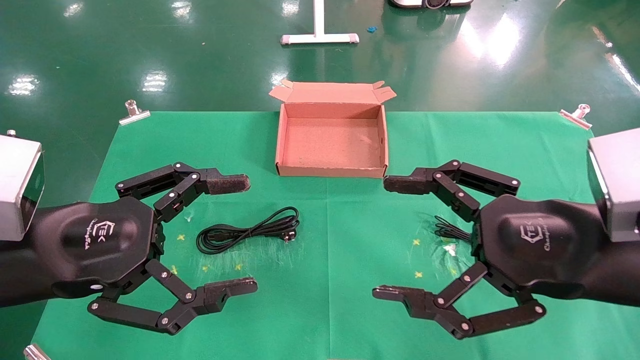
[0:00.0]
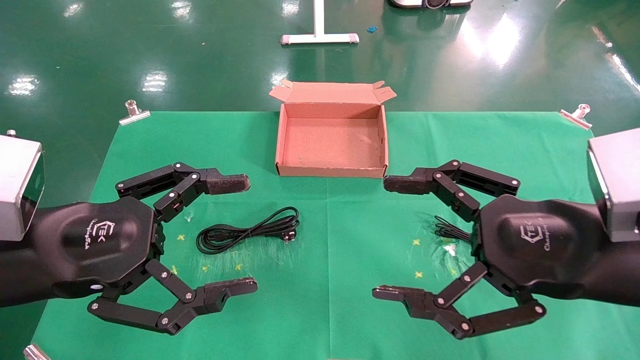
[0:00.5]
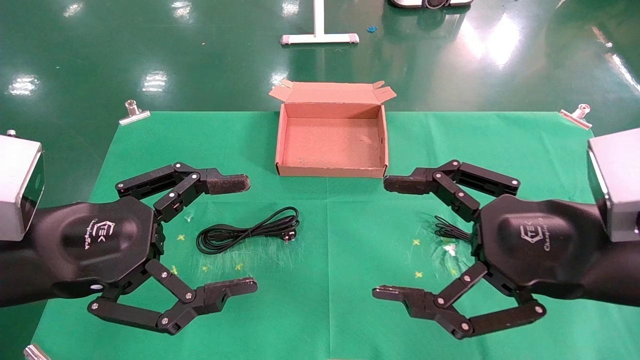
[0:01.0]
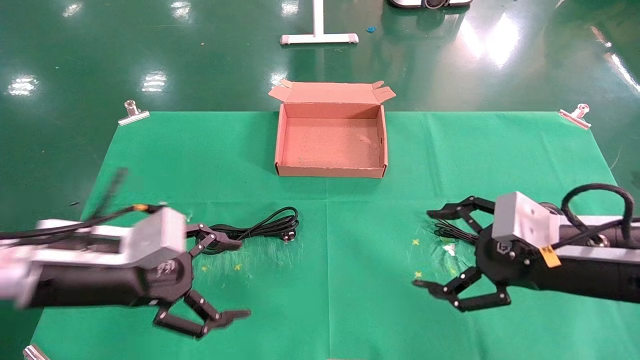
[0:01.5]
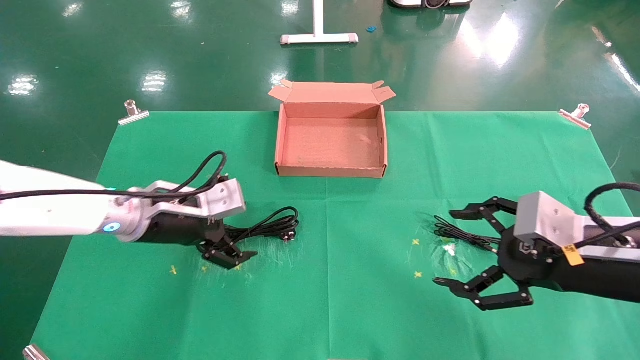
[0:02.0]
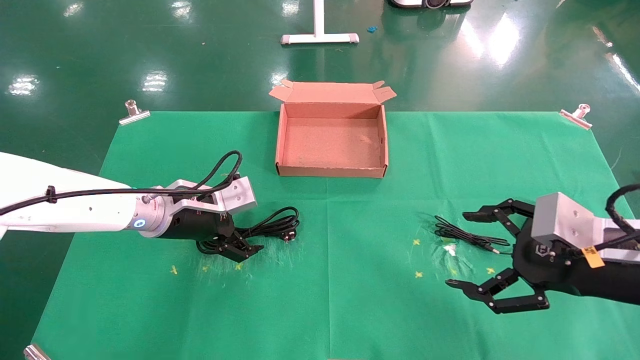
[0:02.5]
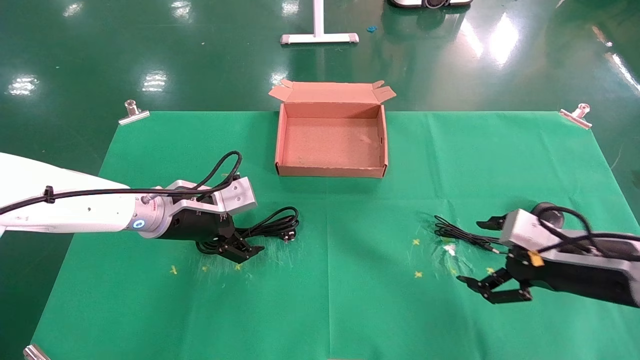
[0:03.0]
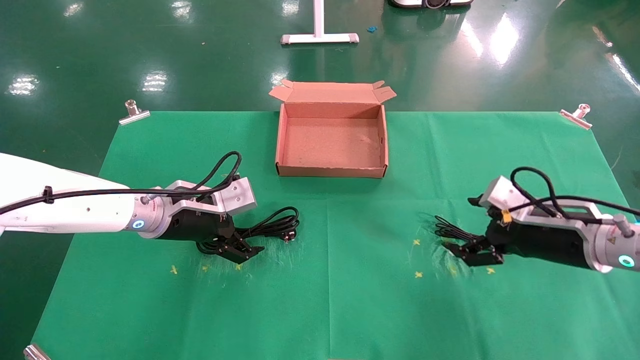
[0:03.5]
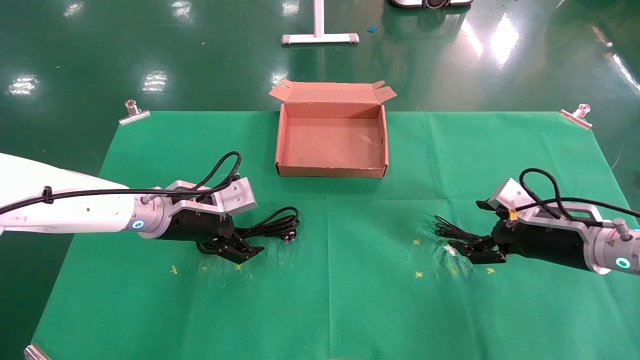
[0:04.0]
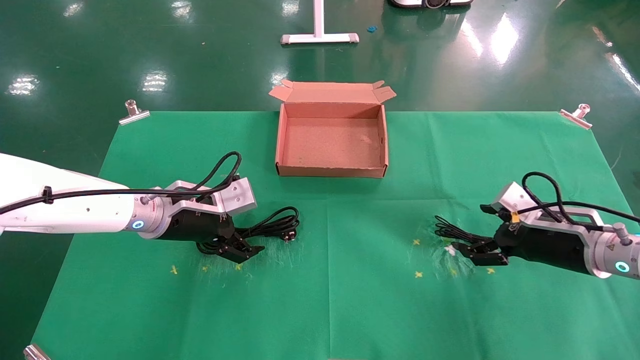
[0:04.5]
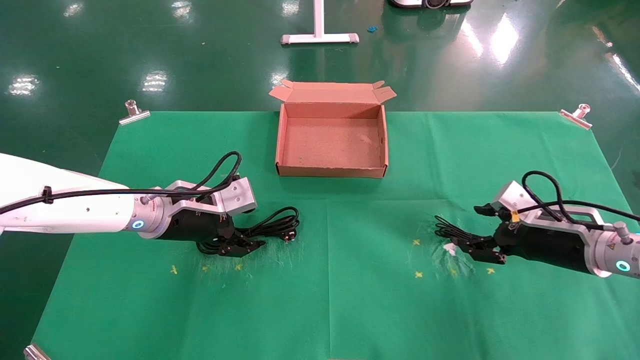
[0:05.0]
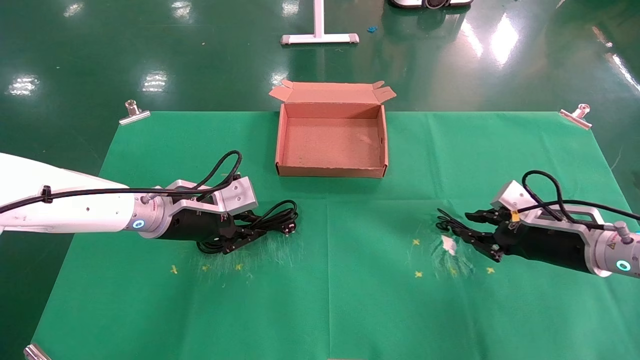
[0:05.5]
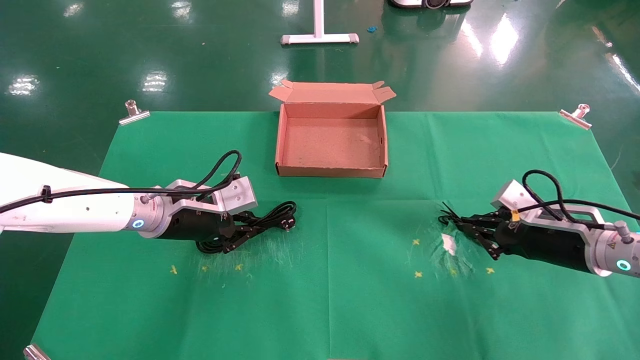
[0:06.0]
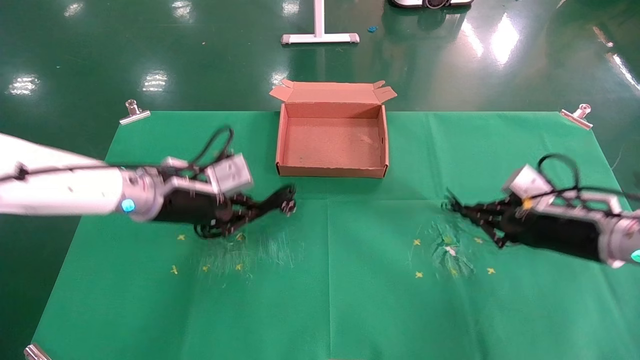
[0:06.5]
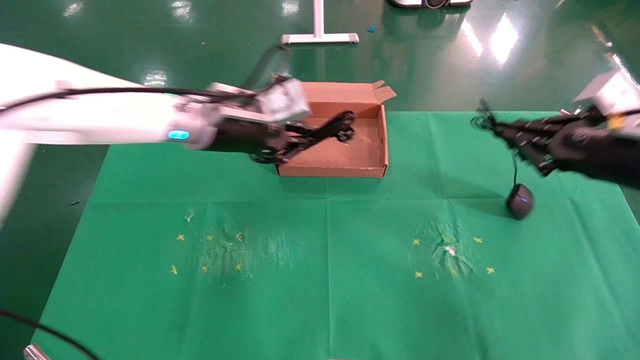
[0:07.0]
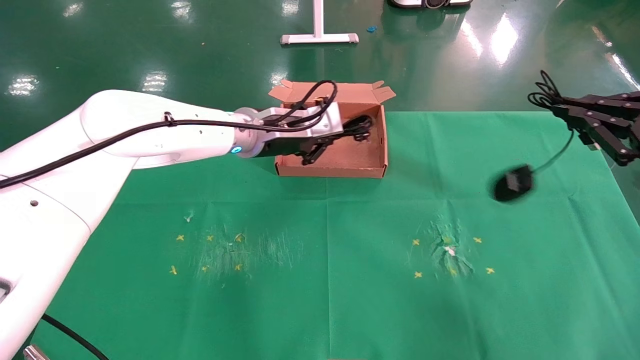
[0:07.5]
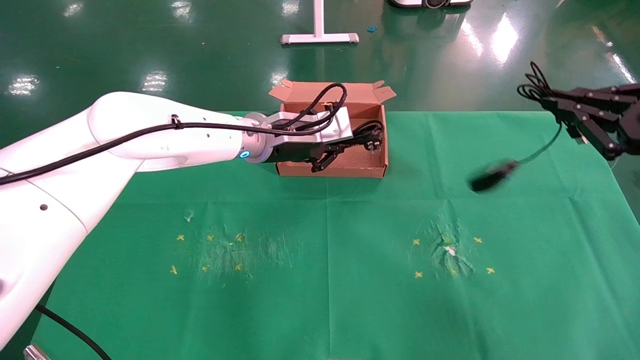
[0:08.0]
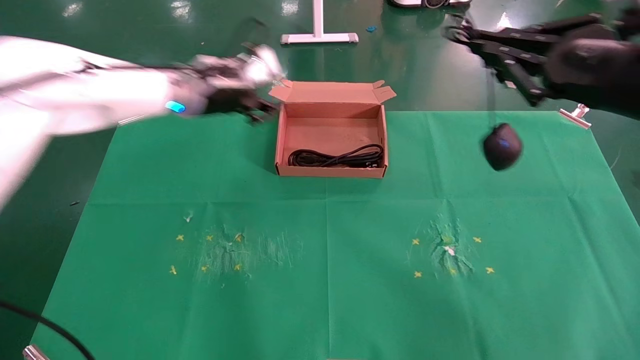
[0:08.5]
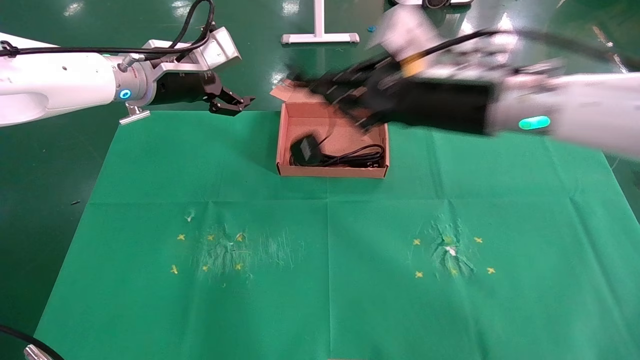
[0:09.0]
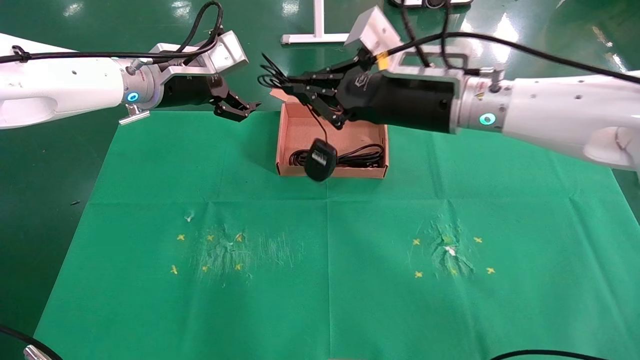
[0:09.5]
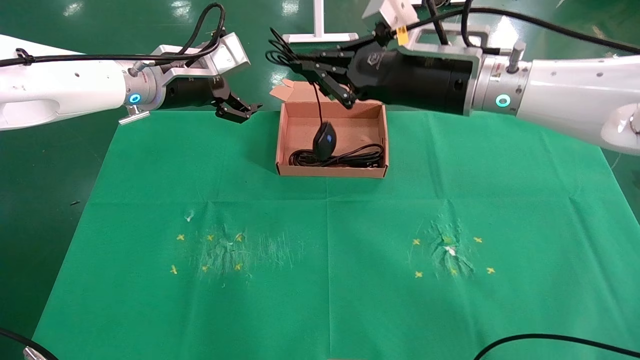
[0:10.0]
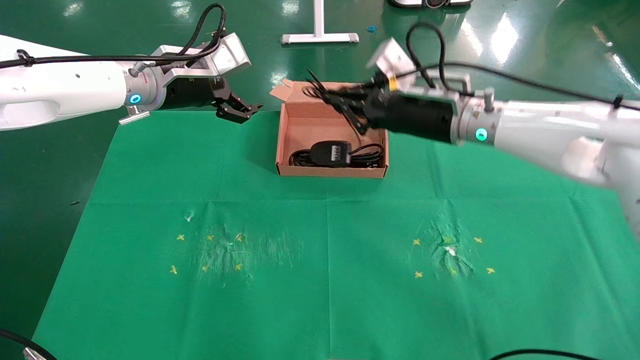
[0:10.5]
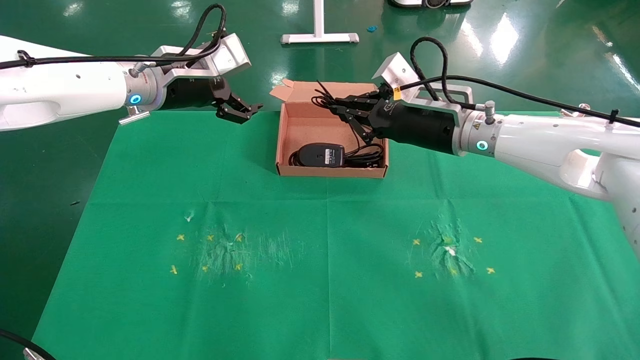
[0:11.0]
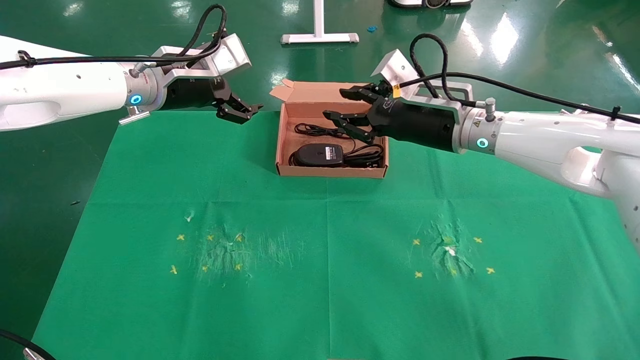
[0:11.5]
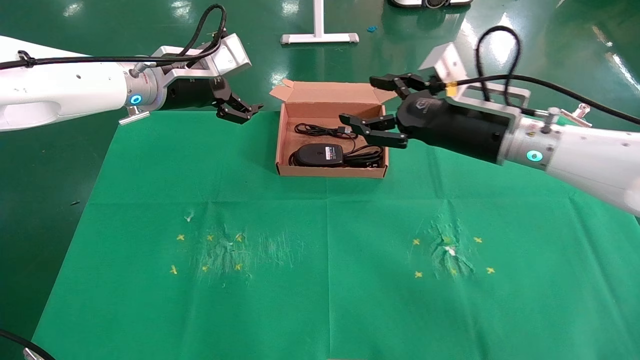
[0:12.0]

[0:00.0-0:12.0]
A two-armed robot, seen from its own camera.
Task of the whole recording: grasp data cable left put into box grasp mouse right put into box.
Step, 0:01.5 to 0:06.0: Simultaneously pick up the mouse and power cord from the accessory packaging area.
Step, 0:06.5 to 0:11.0: Place the mouse and power cord into the box.
0:00.0 to 0:02.0: The left gripper heads forward, covering some 20 cm. The right gripper goes roughly 10 cm to the right, downward and forward.
0:02.0 to 0:04.0: The right gripper heads forward and downward, covering about 15 cm.
0:04.0 to 0:06.0: The left gripper closes its fingers. The right gripper closes up.
0:06.0 to 0:08.0: The right gripper heads upward and backward, covering about 20 cm, while the left gripper heads to the right, upward and forward, covering approximately 20 cm.
0:08.0 to 0:10.0: The left gripper travels to the left and upward by roughly 15 cm, and opens its fingers. Meanwhile the right gripper moves to the left and forward, about 30 cm.
0:10.0 to 0:12.0: The right gripper heads to the right and downward, covering some 10 cm, and opens up.

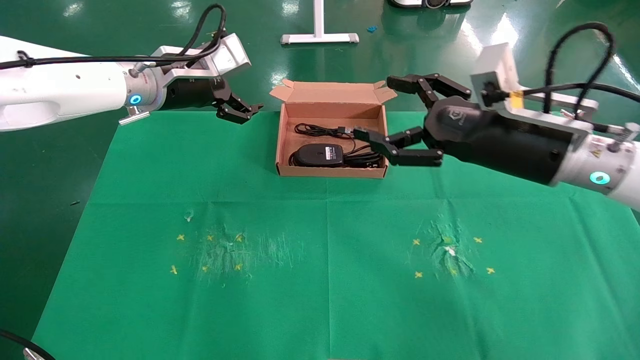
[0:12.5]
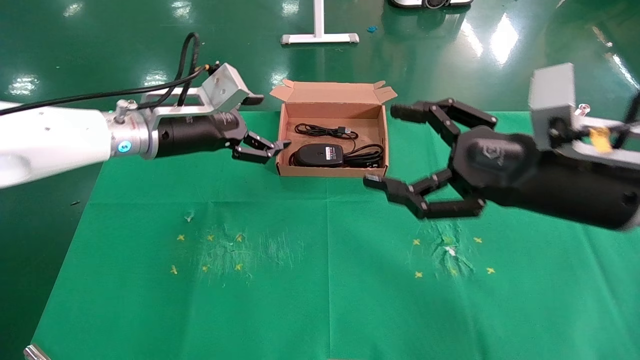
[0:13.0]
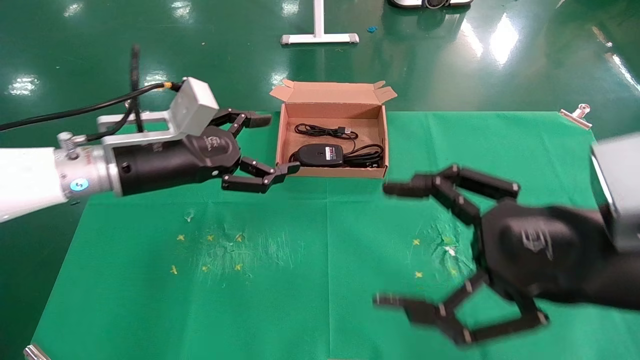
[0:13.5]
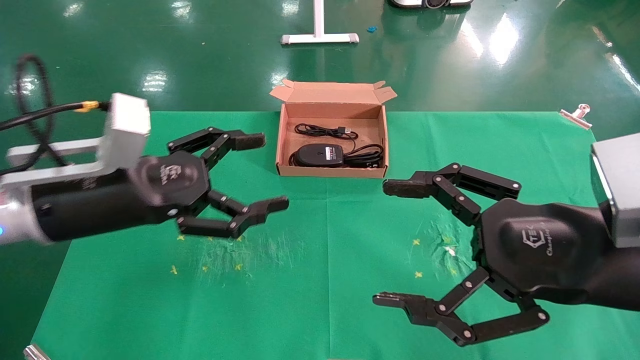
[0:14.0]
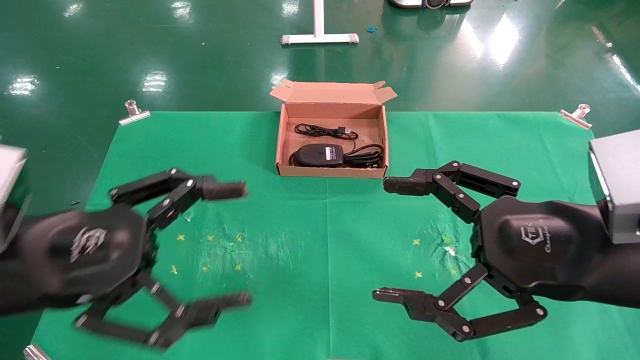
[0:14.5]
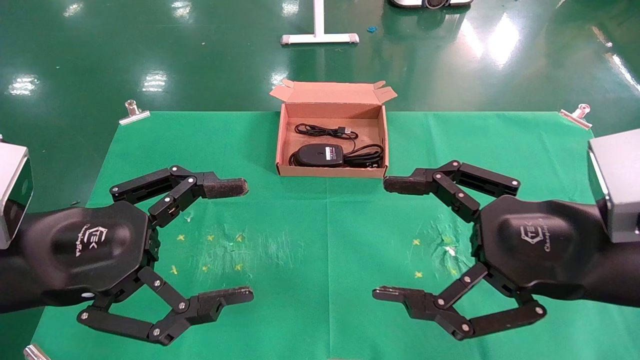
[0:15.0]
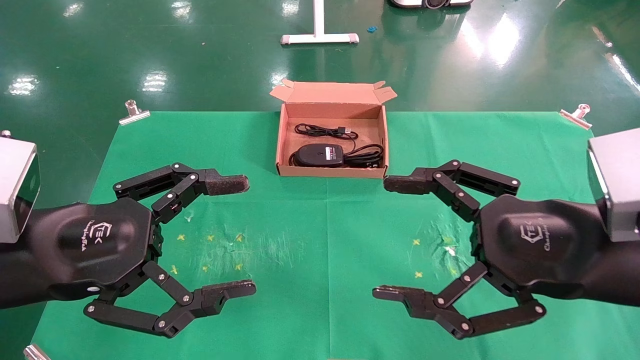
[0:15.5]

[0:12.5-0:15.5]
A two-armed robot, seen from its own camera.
Task of the whole recording: grasp data cable left put into box grasp mouse right put into box.
0:12.5 to 0:14.0: The right gripper is displaced backward by approximately 15 cm. The left gripper travels backward and downward by about 20 cm.
0:14.0 to 0:15.5: The left gripper heads backward, covering approximately 10 cm.
